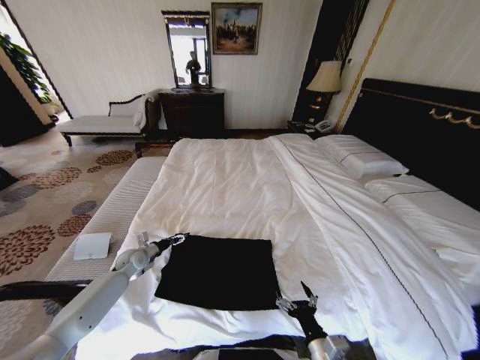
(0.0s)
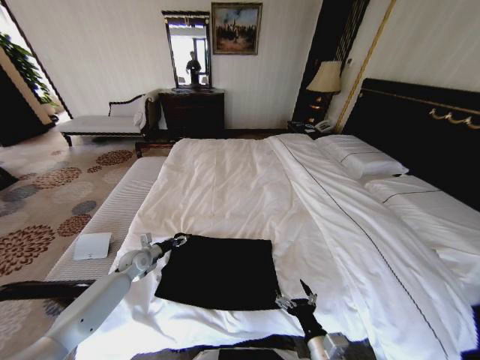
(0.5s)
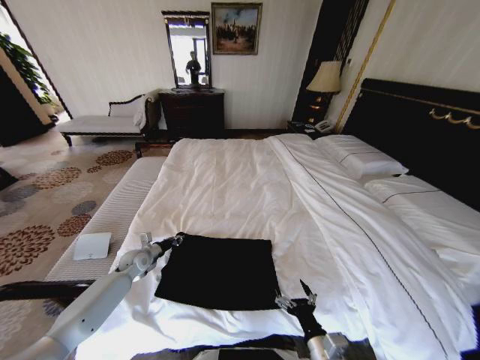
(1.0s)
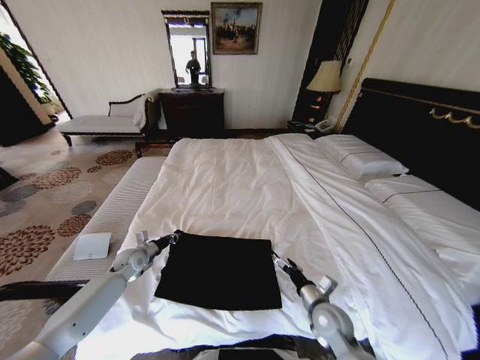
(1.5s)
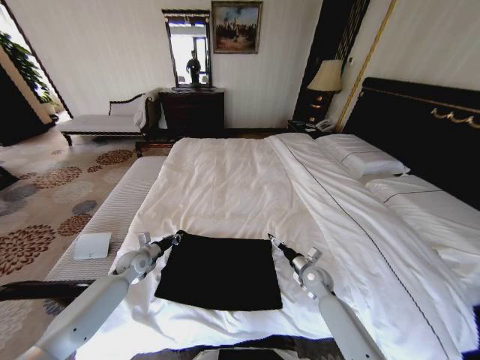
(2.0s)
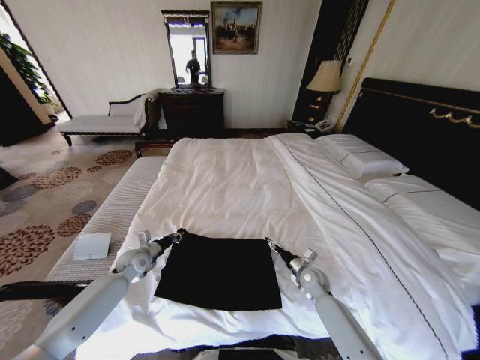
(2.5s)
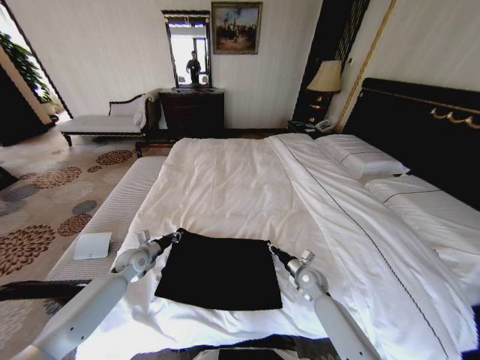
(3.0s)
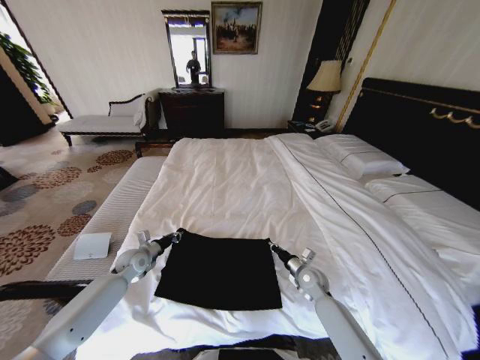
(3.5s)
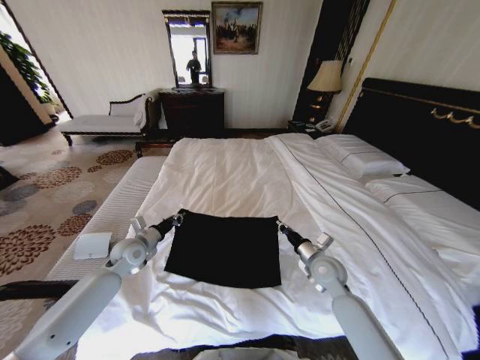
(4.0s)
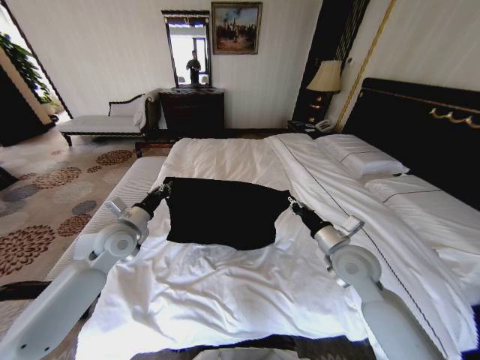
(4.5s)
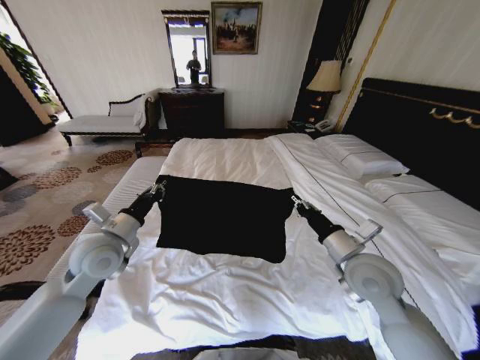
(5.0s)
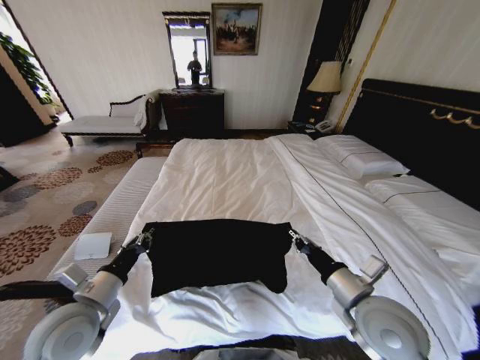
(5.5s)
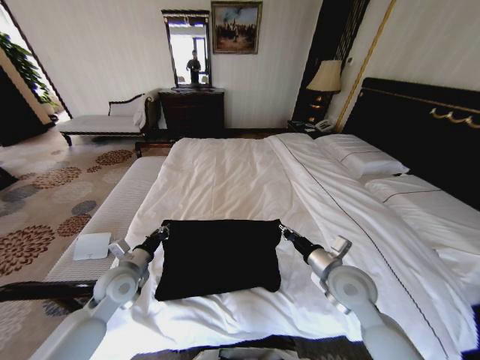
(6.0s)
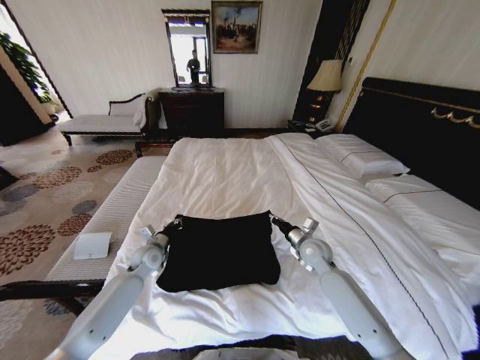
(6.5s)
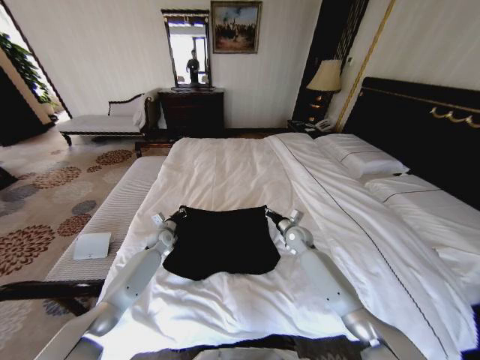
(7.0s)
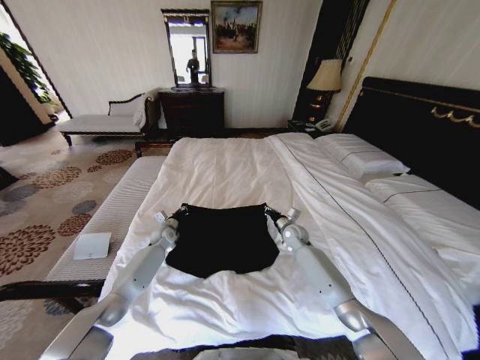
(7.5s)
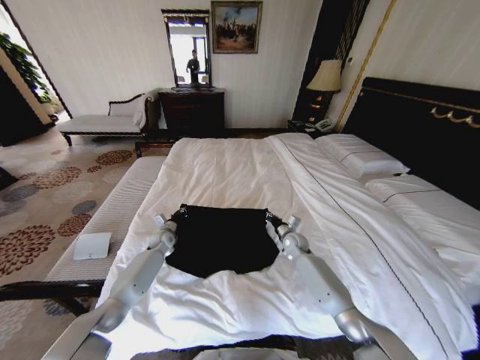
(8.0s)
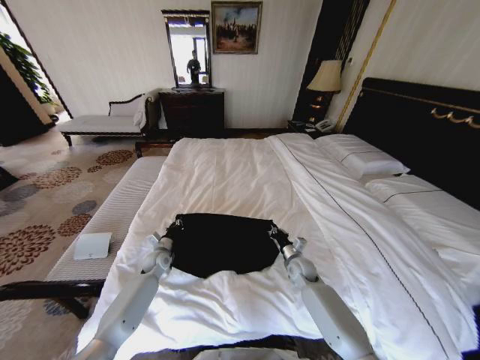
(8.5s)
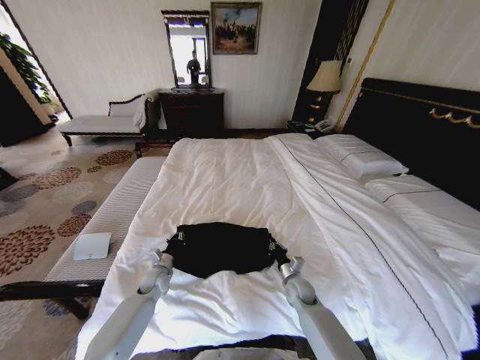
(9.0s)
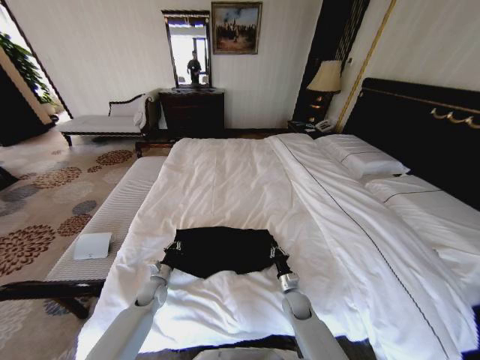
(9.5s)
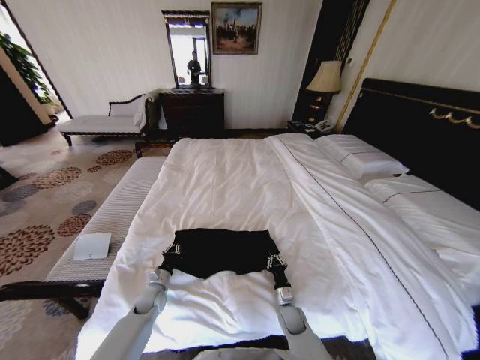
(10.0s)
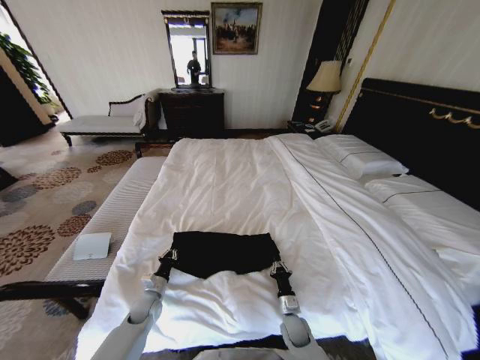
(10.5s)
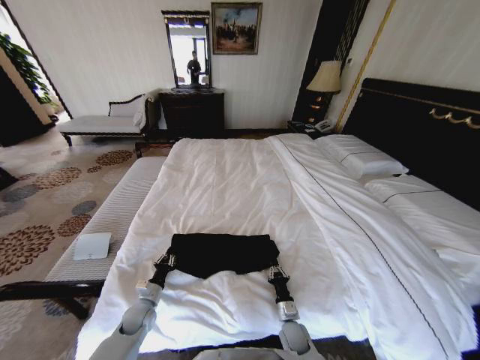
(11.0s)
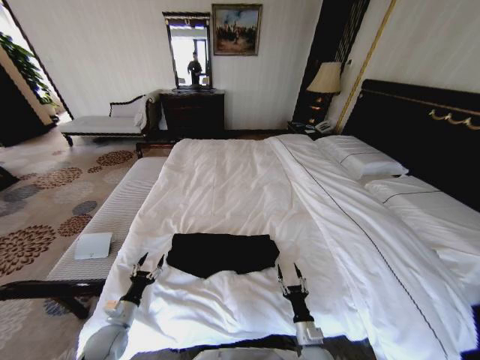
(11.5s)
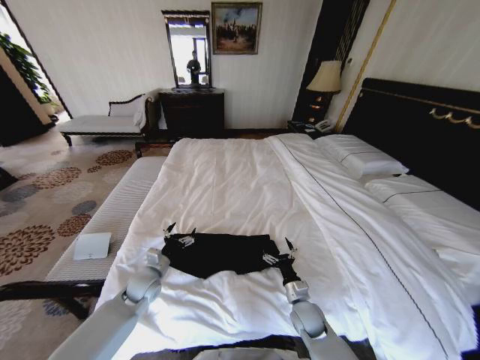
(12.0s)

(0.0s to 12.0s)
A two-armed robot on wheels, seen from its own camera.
Task of the whole recording: Fold the clothes on the bed.
0.0s - 2.0s: The left gripper closes up; the right gripper travels forward by some 25 cm.
2.0s - 4.0s: The grippers both shift upward by about 10 cm. The right gripper closes.
4.0s - 6.0s: The left gripper heads backward, covering some 10 cm. The right gripper is displaced upward and backward by roughly 10 cm.
6.0s - 8.0s: Both grippers travel together forward and downward, roughly 25 cm.
8.0s - 10.0s: The grippers both shift backward and downward by about 25 cm.
10.0s - 12.0s: The grippers both shift upward by about 10 cm. The left gripper moves roughly 10 cm backward and comes back, and opens its fingers. The right gripper reaches some 10 cm backward, then returns, and opens.

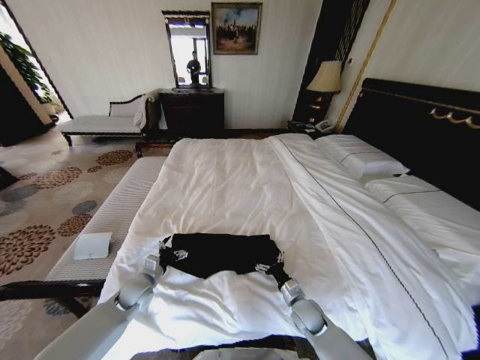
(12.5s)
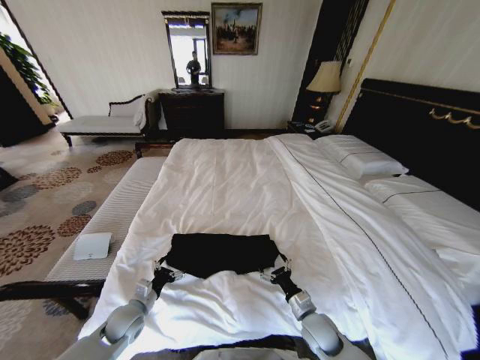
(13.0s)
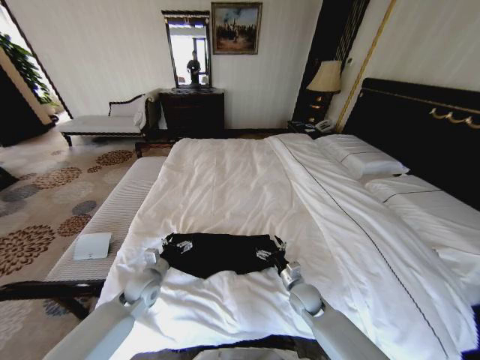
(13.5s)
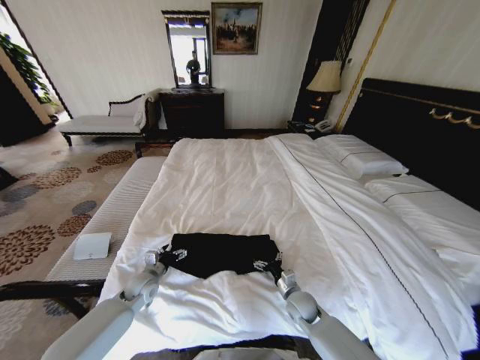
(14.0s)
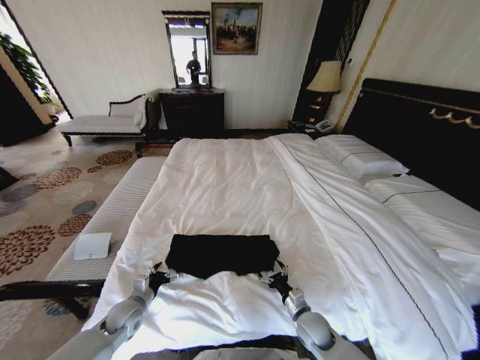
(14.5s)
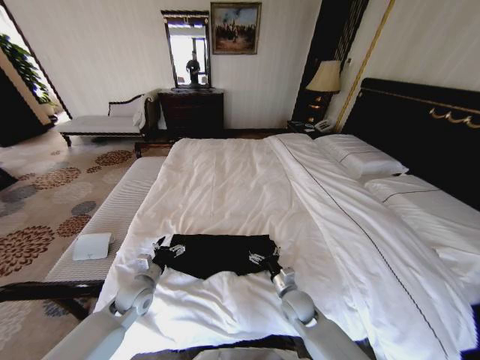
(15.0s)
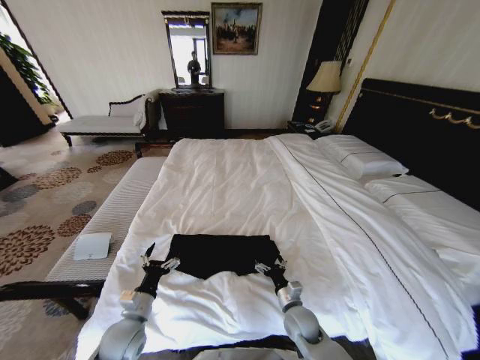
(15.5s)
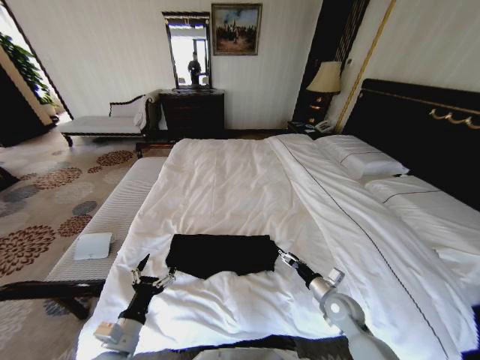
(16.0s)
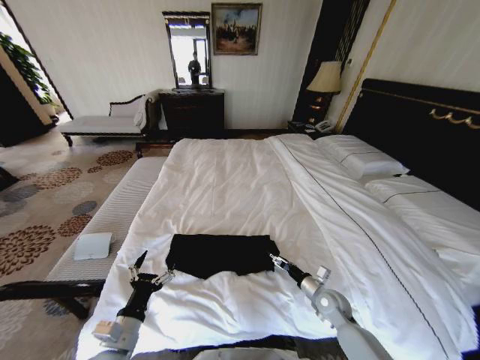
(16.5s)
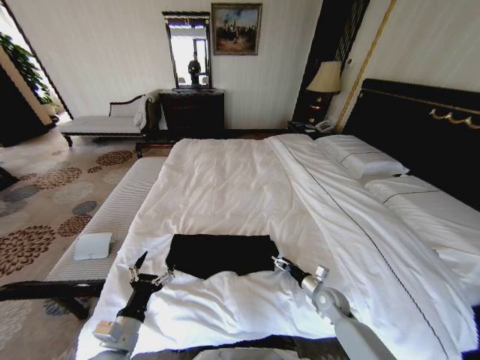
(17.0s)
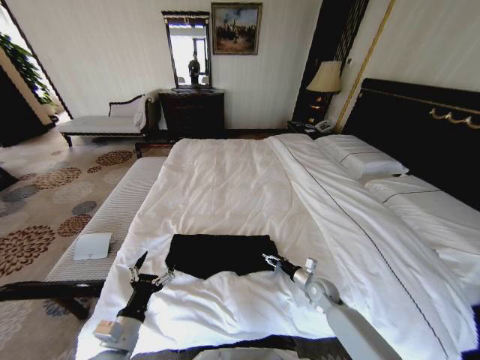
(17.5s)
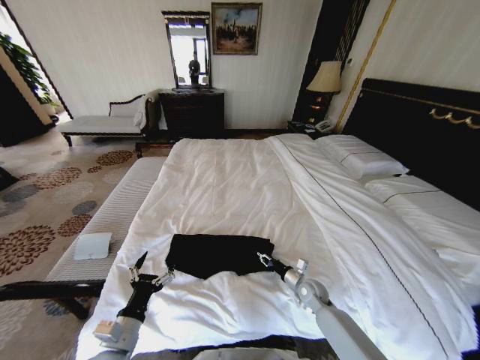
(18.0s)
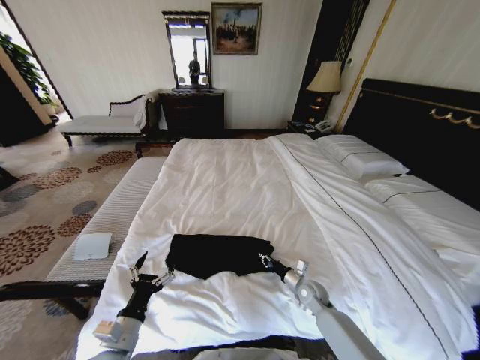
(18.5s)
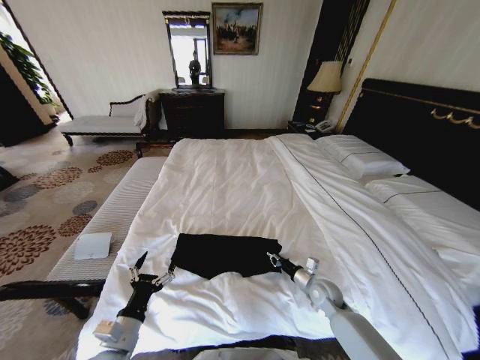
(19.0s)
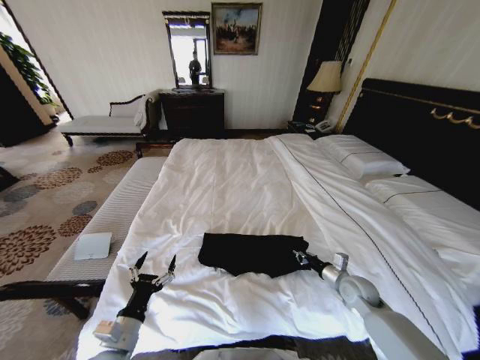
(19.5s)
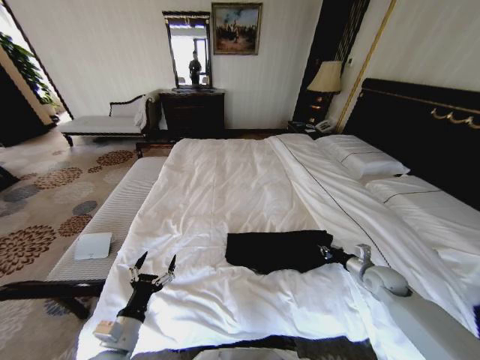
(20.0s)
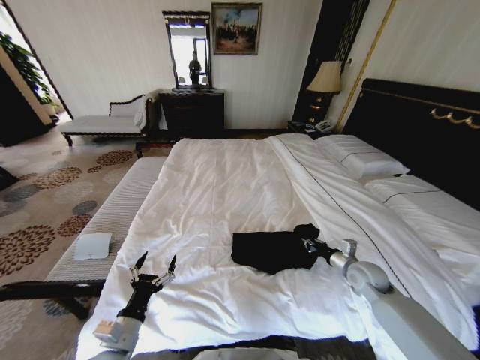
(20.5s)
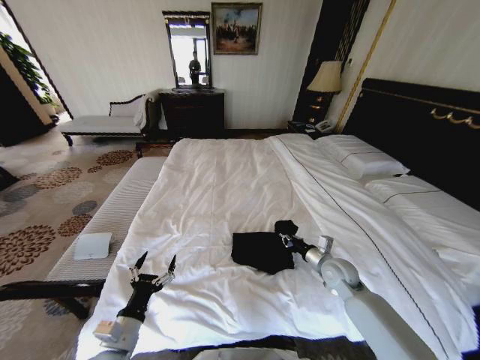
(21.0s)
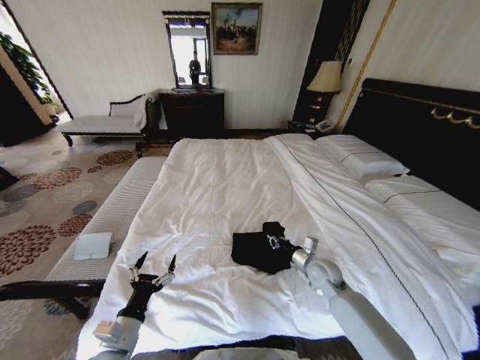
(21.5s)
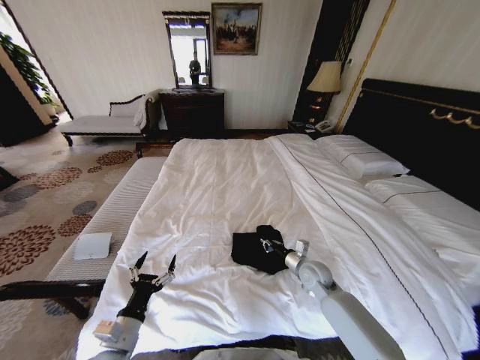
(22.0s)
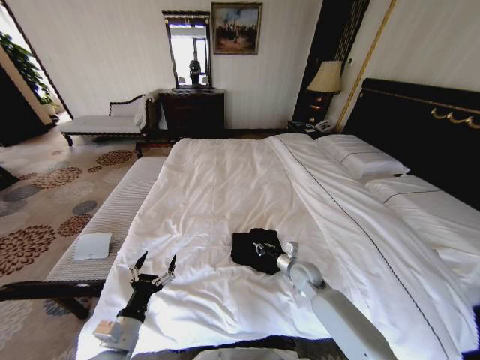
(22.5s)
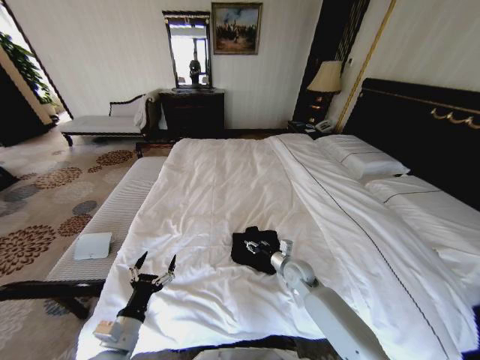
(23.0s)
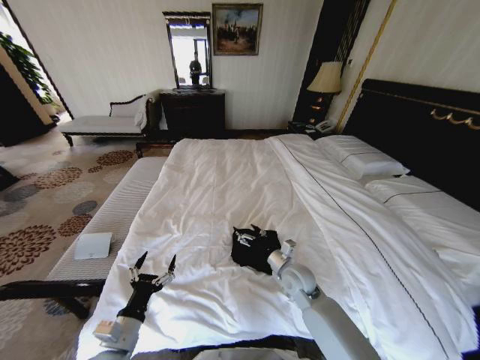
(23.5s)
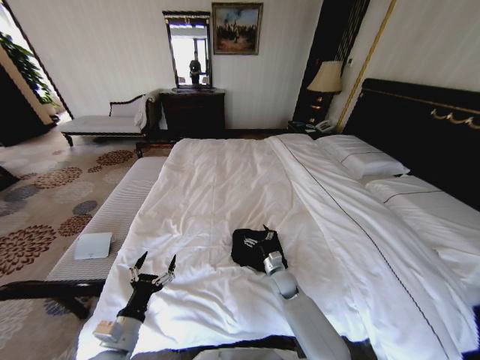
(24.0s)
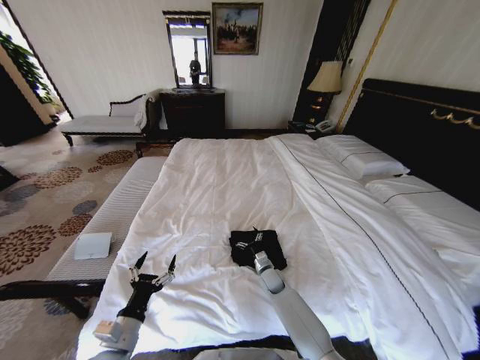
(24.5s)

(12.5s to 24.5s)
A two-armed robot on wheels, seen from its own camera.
Task of the whole recording: Fold the clothes on the bed.
12.5s - 14.5s: The left gripper moves forward and backward over approximately 10 cm, changing direction 2 times. Meanwhile the right gripper swings forward and backward, approximately 10 cm each way, with 2 reversals.
14.5s - 16.5s: The left gripper shifts roughly 15 cm backward, upward and to the right; the right gripper heads to the right and forward, covering approximately 10 cm.
16.5s - 18.5s: The right gripper ends up about 5 cm from where it was, and closes up.
18.5s - 20.5s: The right gripper moves to the right and upward, about 20 cm.
20.5s - 22.5s: The right gripper heads to the left, covering about 15 cm.
22.5s - 24.5s: The right gripper is displaced downward and to the left by about 15 cm, and opens up.

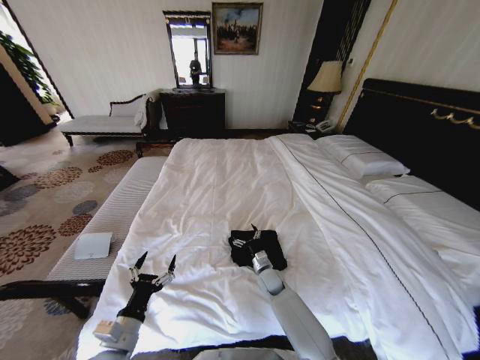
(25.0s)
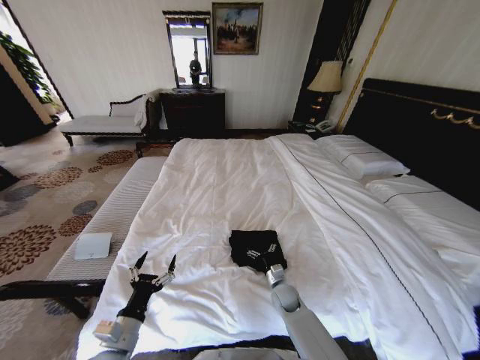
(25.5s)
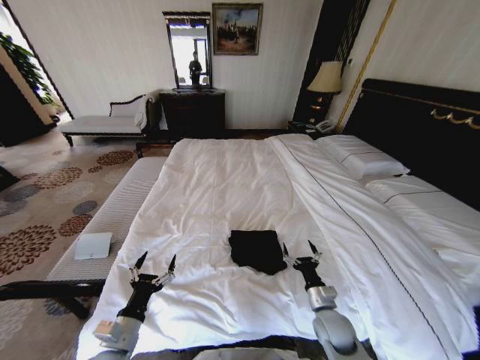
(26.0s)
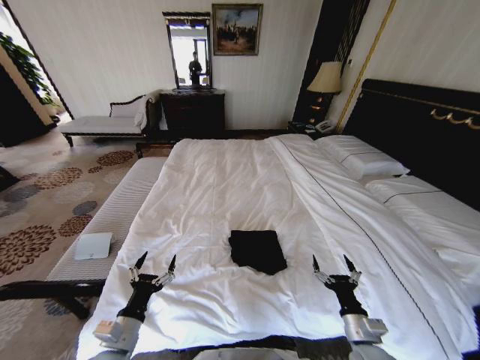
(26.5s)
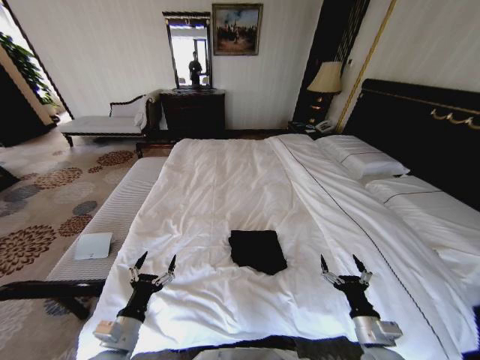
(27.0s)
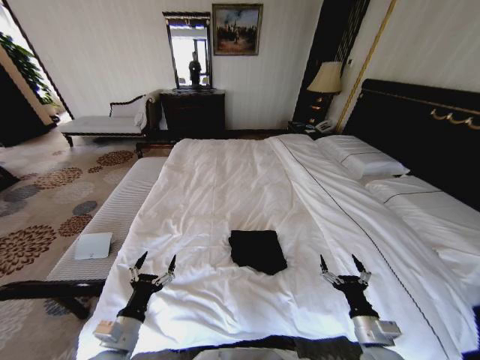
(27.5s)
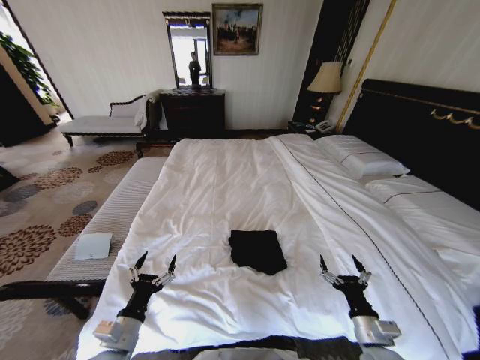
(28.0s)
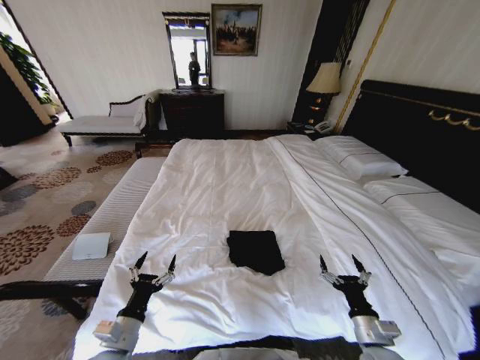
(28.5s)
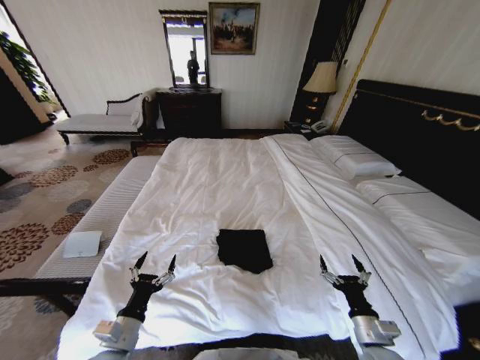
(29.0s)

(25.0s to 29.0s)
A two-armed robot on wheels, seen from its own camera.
Task of the whole recording: Fold the clothes on the bed.
25.0s - 27.0s: The right gripper is displaced backward, to the right and upward by some 35 cm.
